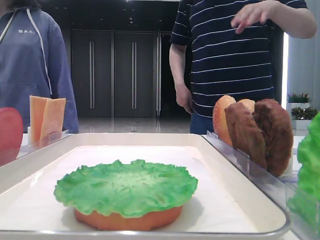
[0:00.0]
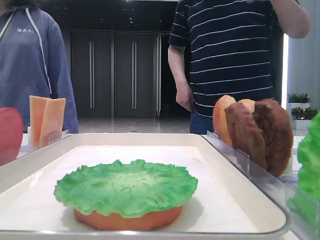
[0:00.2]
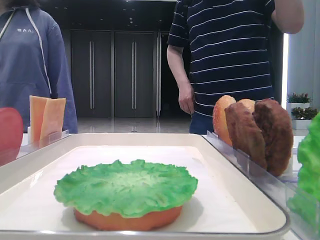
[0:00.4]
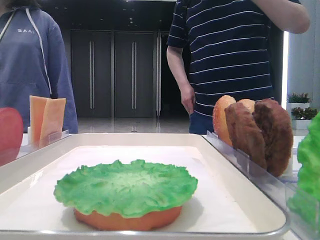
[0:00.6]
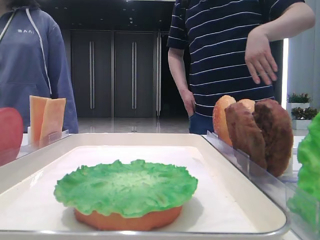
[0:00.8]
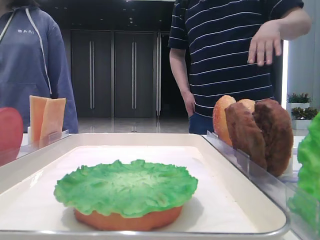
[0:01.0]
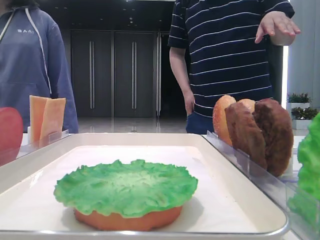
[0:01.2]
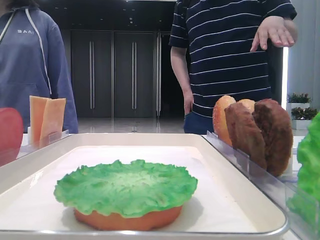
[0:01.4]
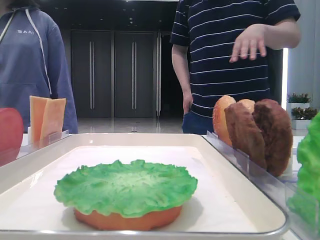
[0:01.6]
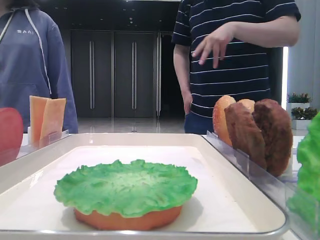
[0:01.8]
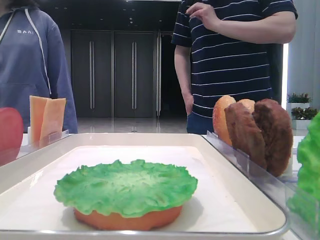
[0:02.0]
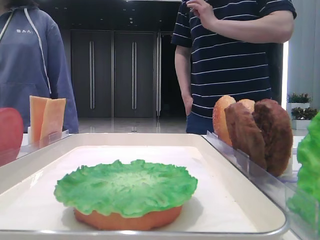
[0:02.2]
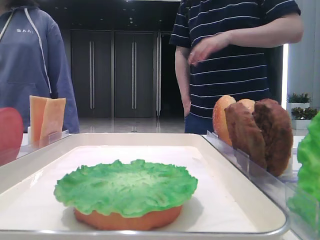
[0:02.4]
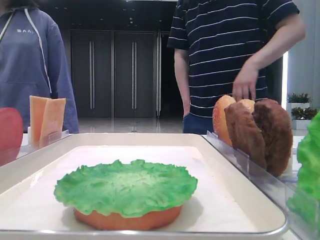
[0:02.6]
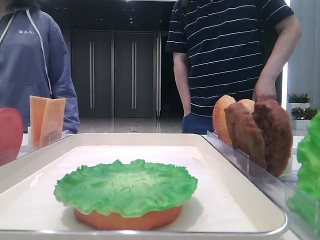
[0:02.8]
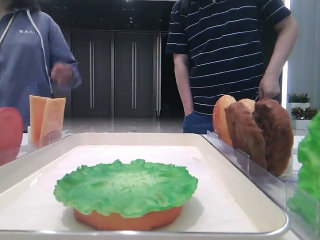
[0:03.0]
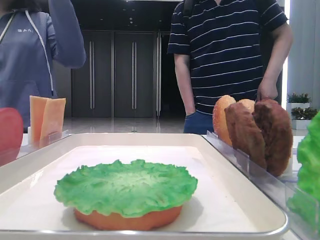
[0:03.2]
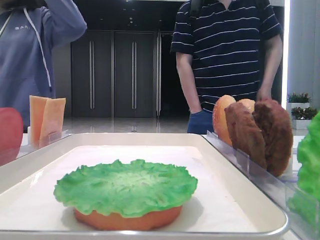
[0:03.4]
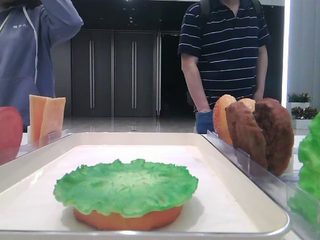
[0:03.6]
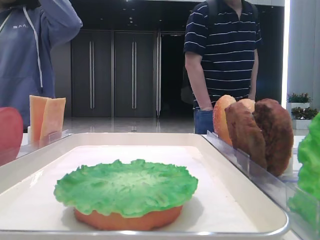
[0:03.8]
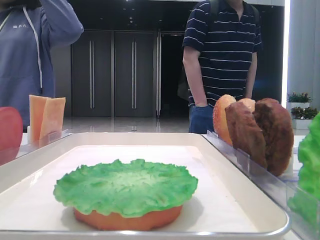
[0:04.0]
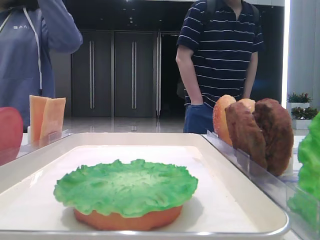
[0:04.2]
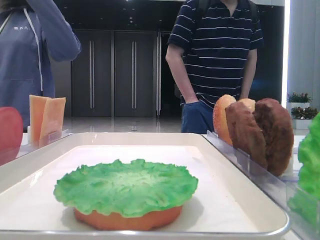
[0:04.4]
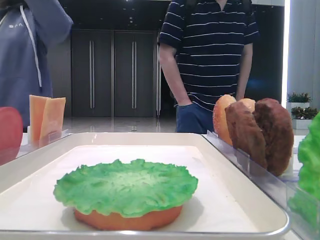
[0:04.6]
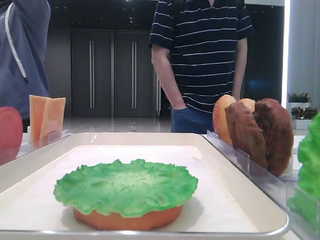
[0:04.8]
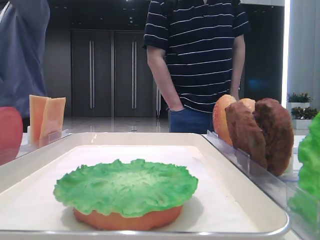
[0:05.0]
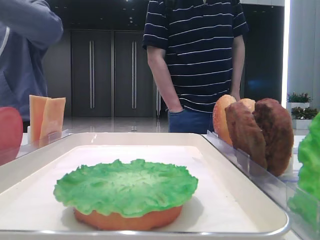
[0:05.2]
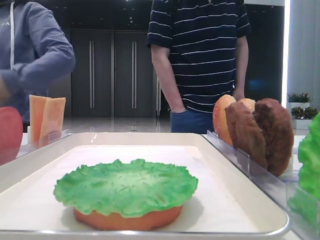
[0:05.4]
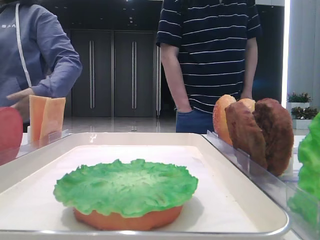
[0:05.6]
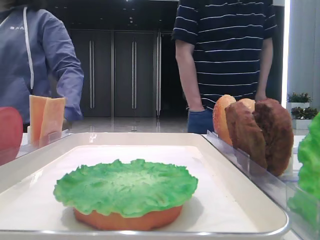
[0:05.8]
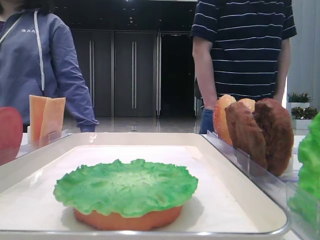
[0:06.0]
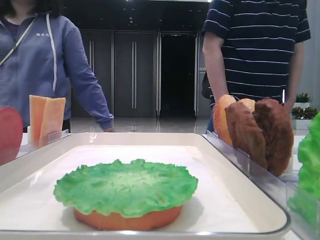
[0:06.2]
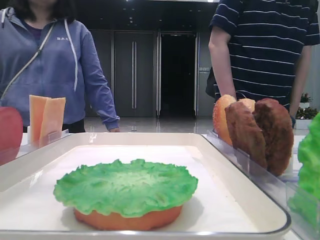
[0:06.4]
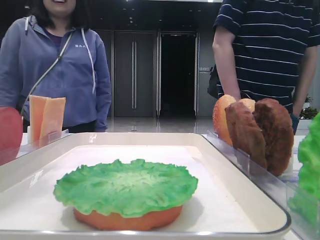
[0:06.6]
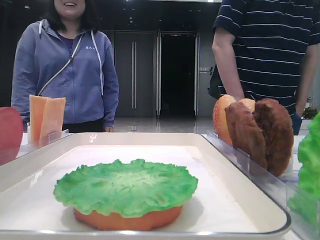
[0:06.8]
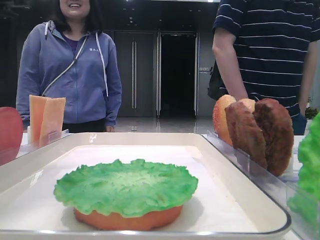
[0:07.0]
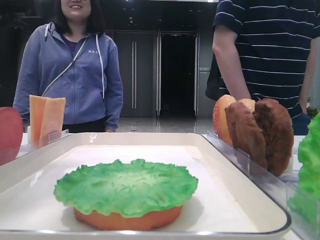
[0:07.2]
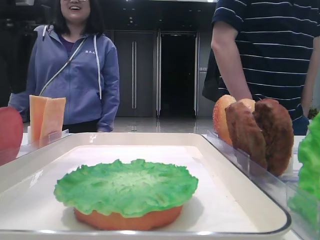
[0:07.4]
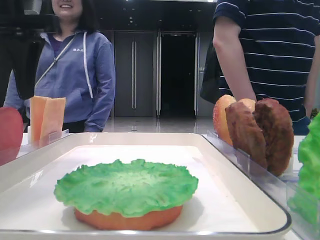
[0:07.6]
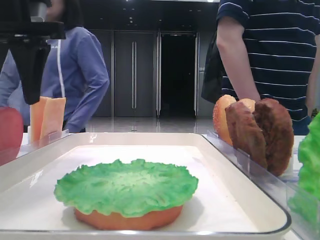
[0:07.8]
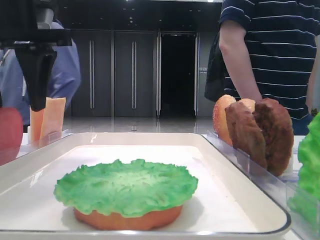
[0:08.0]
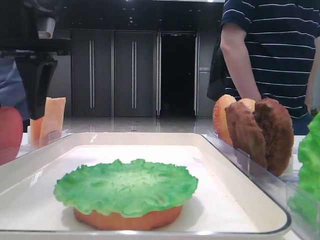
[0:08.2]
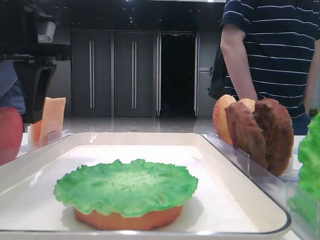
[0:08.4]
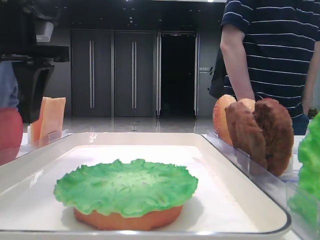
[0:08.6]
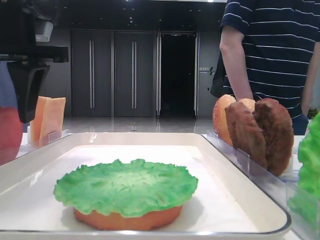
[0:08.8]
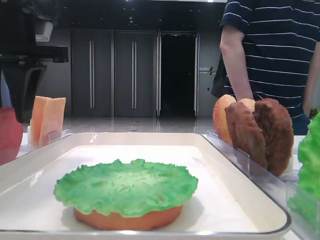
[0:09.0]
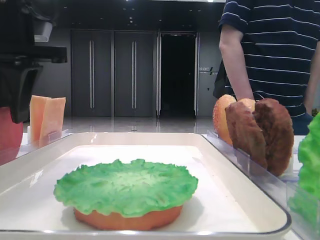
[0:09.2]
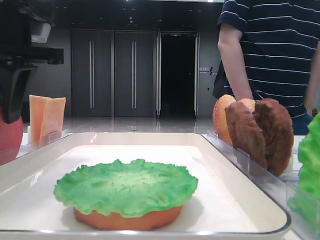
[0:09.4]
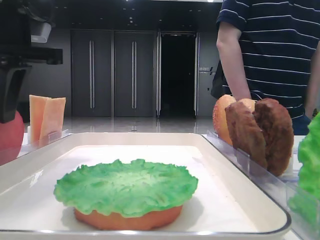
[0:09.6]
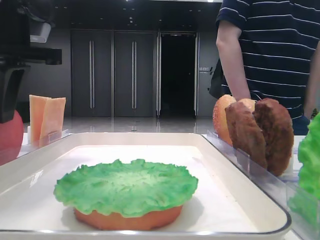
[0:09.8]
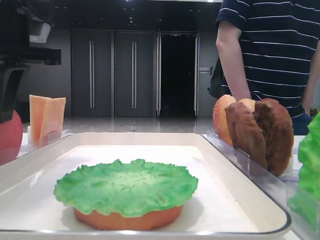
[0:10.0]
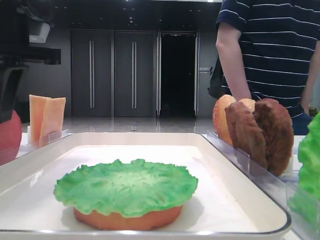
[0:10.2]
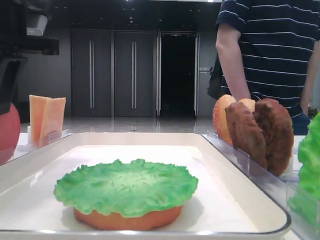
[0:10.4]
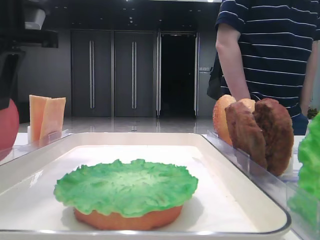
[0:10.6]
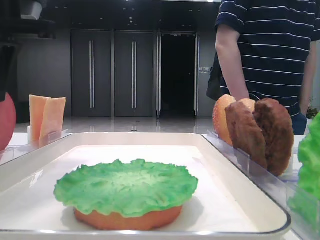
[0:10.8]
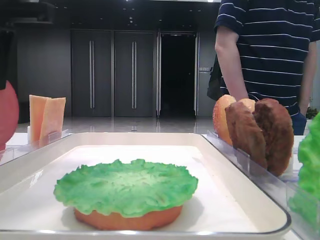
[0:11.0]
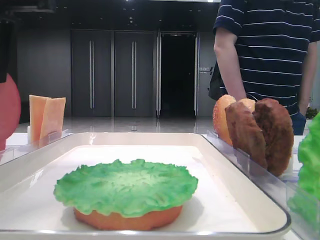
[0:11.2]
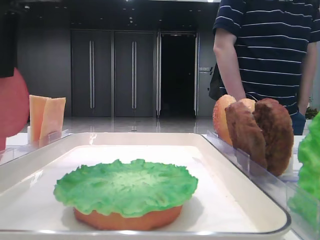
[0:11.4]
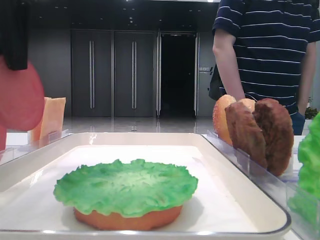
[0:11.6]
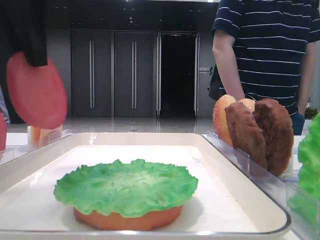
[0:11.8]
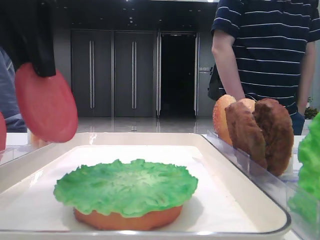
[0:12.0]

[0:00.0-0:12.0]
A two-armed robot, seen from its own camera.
Step, 0:00.0 to 0:09.6: Pick up the tomato slice with the left hand.
0:01.6 to 0:03.0: The left gripper goes approximately 15 cm forward.
0:03.0 to 0:04.4: The left gripper heads forward, covering some 10 cm.
0:04.4 to 0:06.0: The left gripper travels to the right by some 5 cm.
0:06.0 to 0:07.6: The left gripper travels to the right by about 5 cm.
0:07.6 to 0:09.0: The left gripper closes up.
0:09.0 to 0:10.4: The left gripper closes its fingers.
0:10.4 to 0:12.0: The left gripper shifts roughly 5 cm backward.

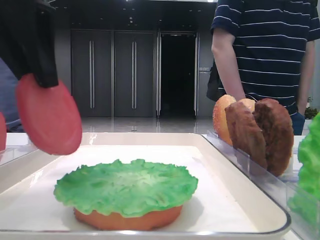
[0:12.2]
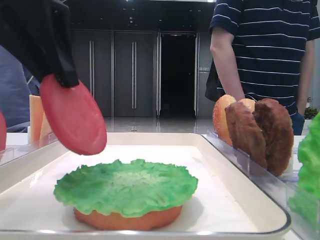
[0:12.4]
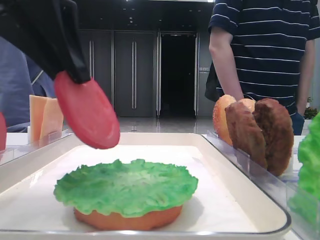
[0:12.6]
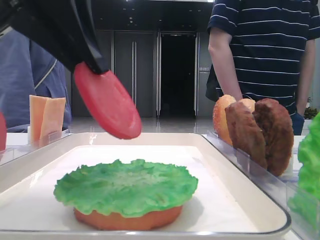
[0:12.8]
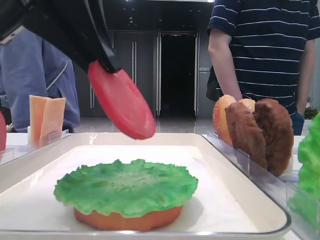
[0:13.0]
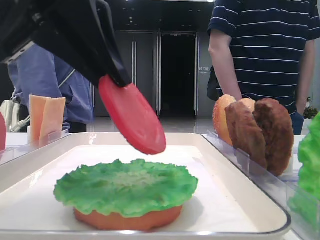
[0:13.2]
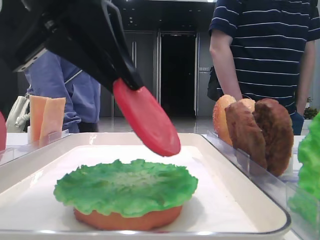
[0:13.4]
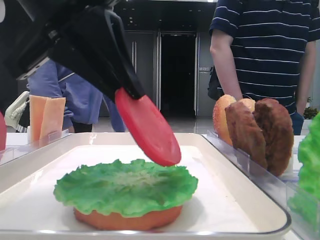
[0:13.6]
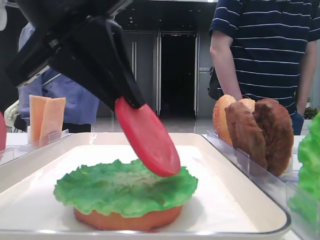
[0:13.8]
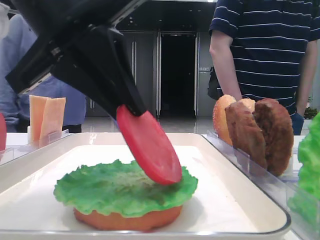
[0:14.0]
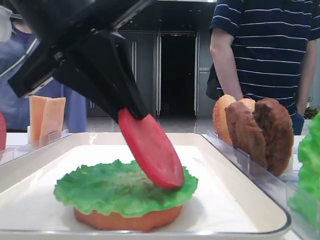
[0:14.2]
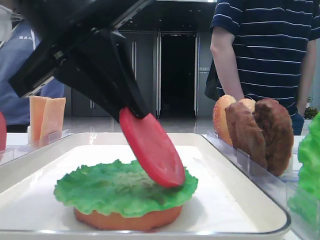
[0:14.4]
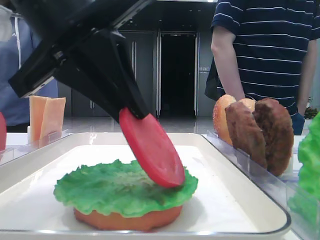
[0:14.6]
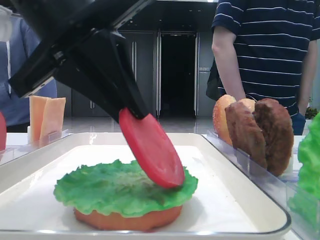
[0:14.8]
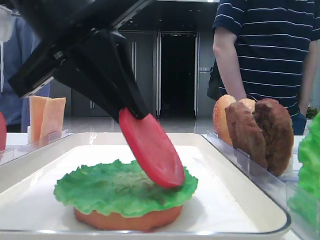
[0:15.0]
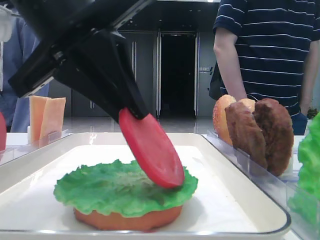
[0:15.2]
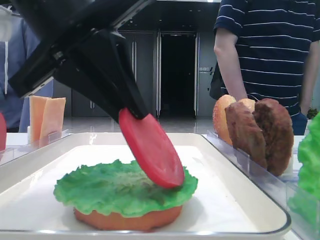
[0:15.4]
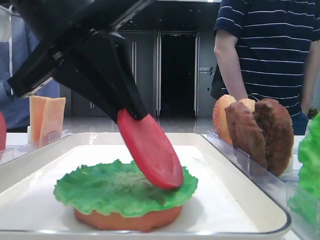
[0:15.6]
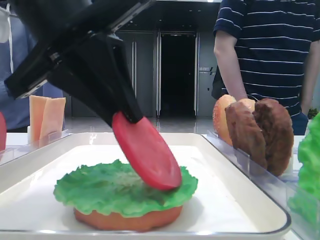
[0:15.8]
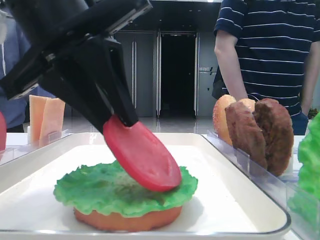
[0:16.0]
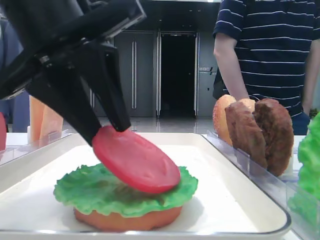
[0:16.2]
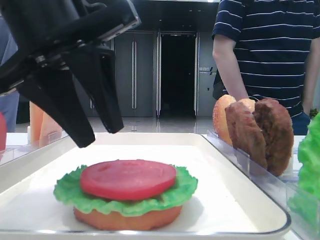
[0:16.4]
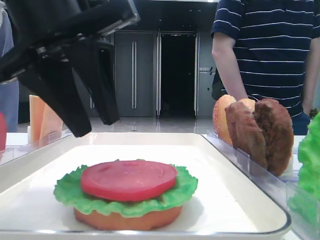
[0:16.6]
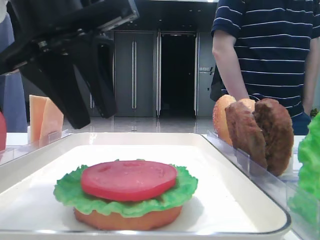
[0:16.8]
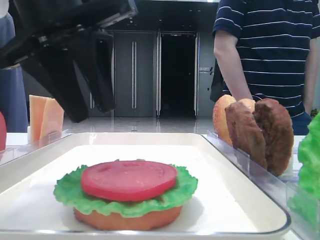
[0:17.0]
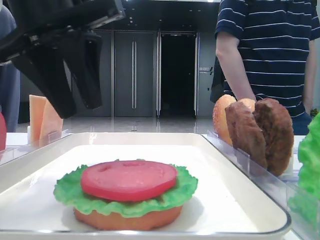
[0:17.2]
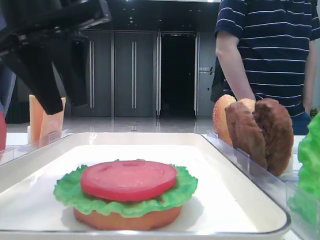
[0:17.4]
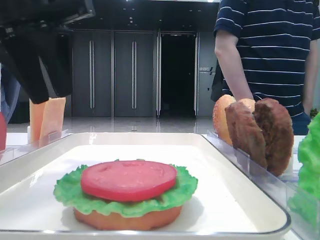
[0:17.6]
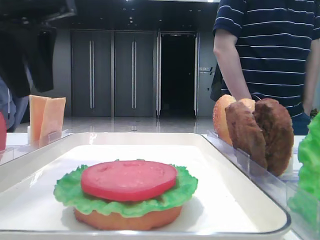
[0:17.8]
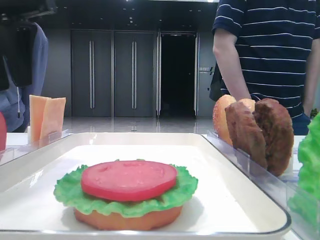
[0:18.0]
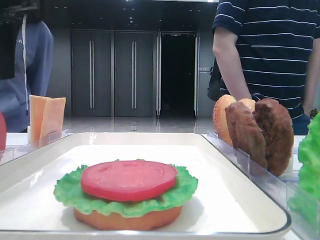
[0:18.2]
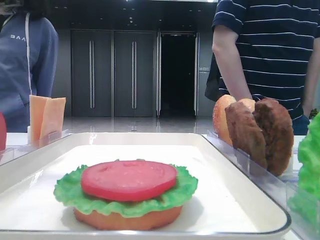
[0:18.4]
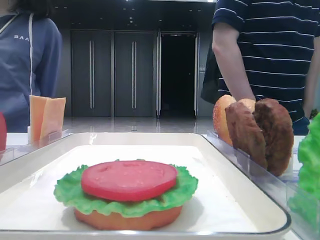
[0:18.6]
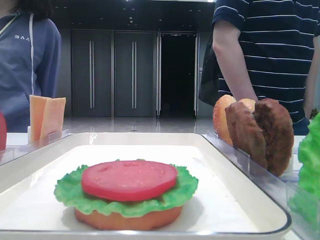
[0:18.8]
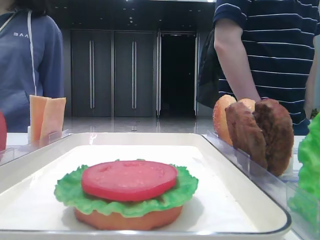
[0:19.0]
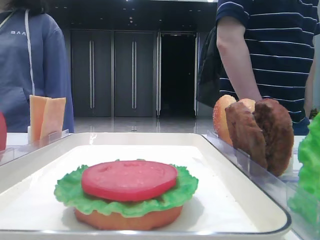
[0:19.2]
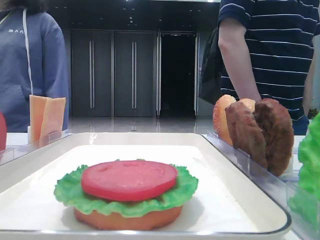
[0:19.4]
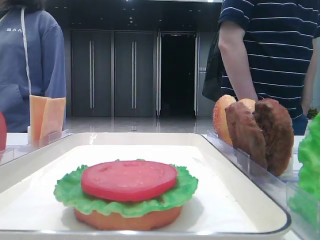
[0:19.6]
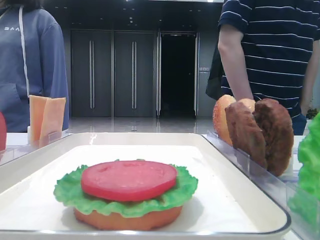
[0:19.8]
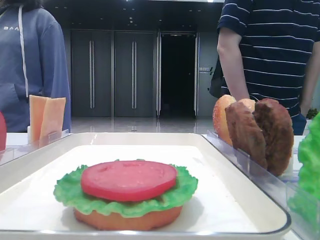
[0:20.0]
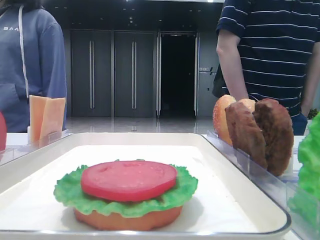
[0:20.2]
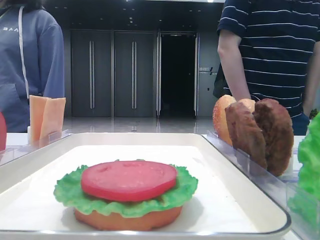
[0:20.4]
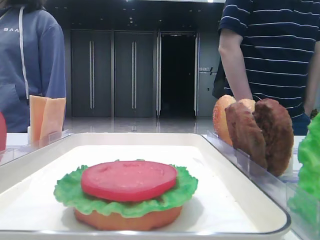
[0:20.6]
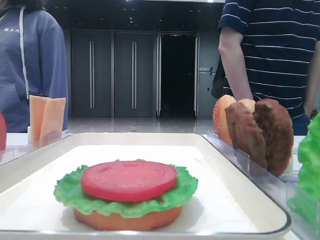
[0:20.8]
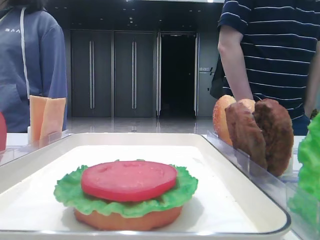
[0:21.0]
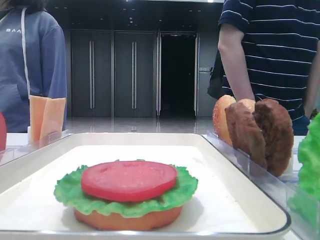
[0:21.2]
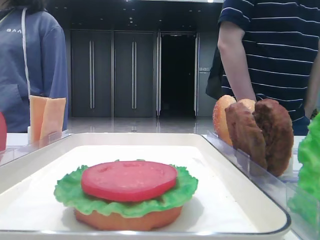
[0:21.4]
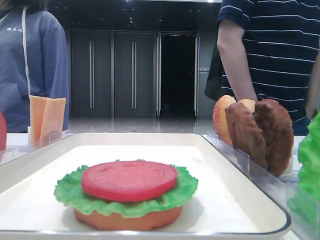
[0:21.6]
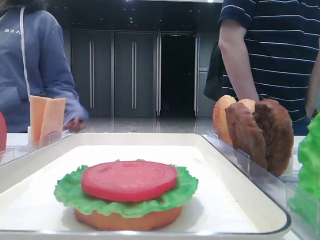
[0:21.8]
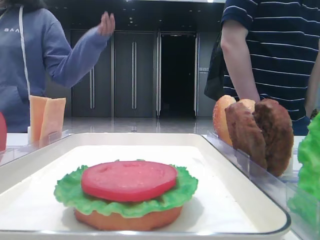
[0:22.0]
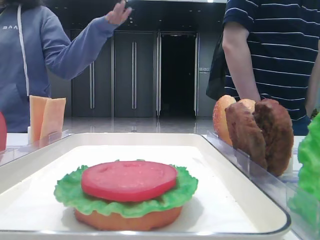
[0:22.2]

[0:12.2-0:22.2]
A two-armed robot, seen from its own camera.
Step, 0:12.2 to 0:16.2: Place the tomato slice on the lettuce leaf with the left hand.
0:12.2 to 0:13.6: The left gripper changes place by roughly 5 cm.
0:13.6 to 0:15.0: The grippers move only a little.
0:15.0 to 0:16.4: The left gripper opens up.
0:16.4 to 0:18.0: The left gripper shifts approximately 10 cm to the left, upward and forward.
0:18.0 to 0:19.4: The left gripper goes about 10 cm to the left.
0:19.4 to 0:20.8: The left gripper moves backward, roughly 20 cm.
0:20.8 to 0:22.2: The left gripper heads backward, covering roughly 5 cm.
